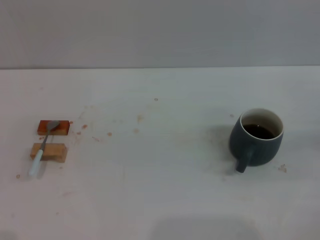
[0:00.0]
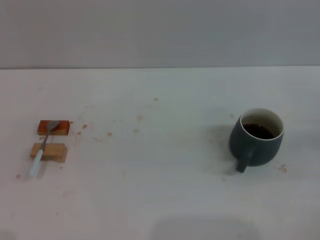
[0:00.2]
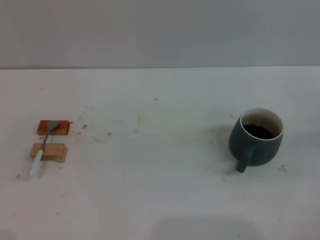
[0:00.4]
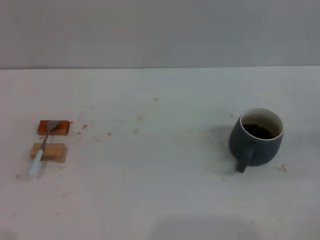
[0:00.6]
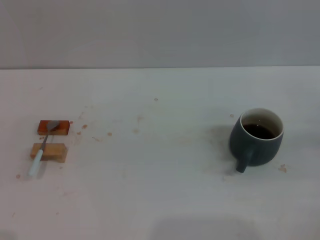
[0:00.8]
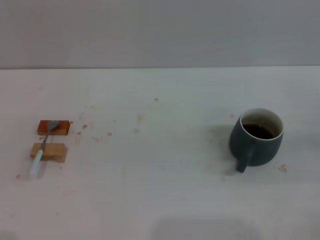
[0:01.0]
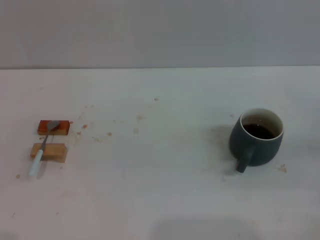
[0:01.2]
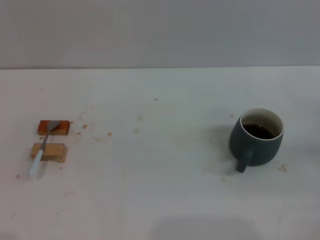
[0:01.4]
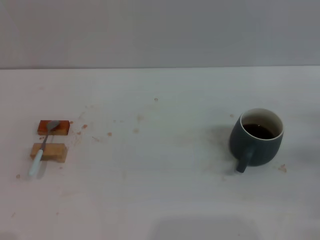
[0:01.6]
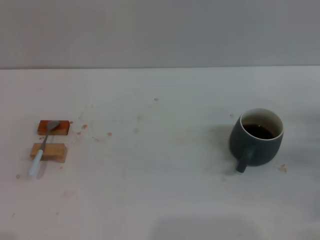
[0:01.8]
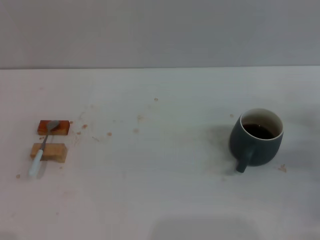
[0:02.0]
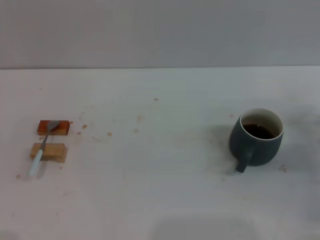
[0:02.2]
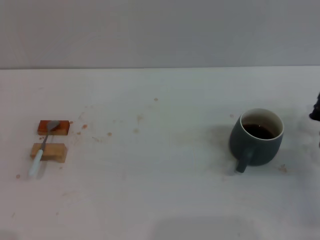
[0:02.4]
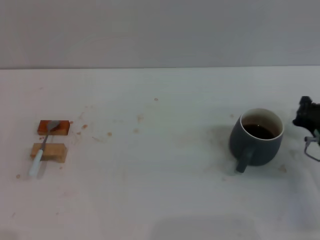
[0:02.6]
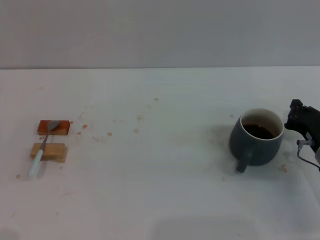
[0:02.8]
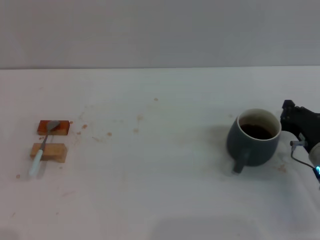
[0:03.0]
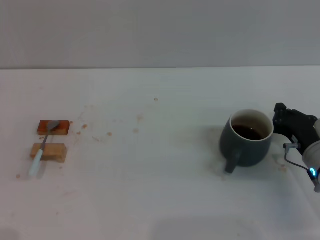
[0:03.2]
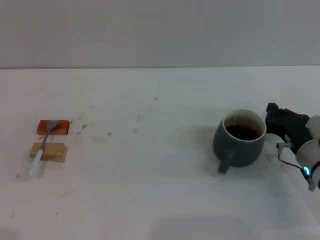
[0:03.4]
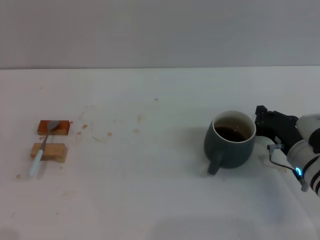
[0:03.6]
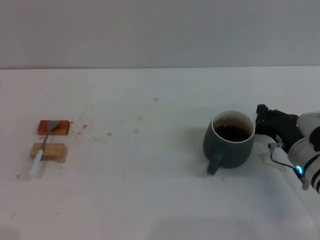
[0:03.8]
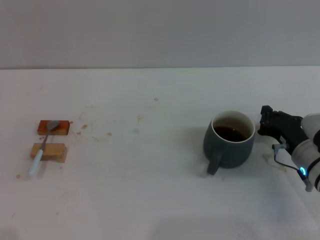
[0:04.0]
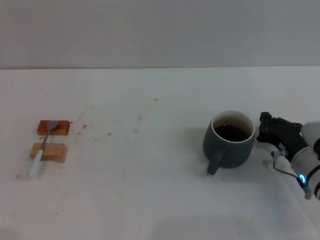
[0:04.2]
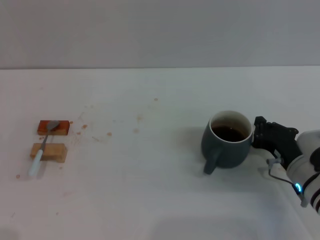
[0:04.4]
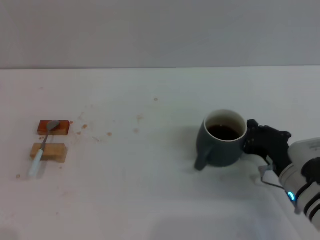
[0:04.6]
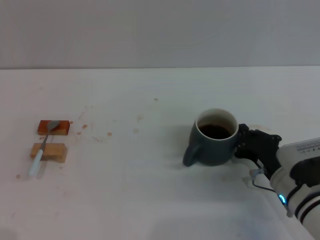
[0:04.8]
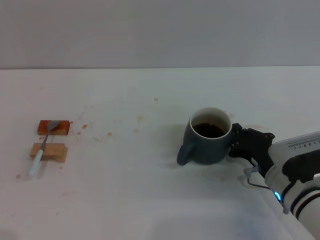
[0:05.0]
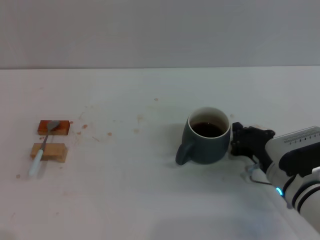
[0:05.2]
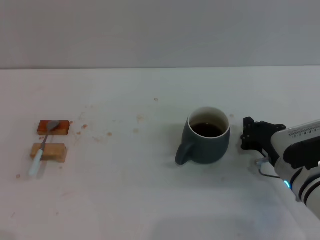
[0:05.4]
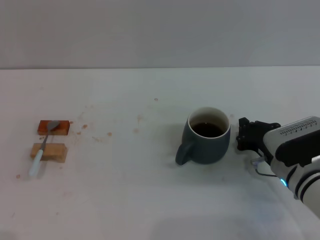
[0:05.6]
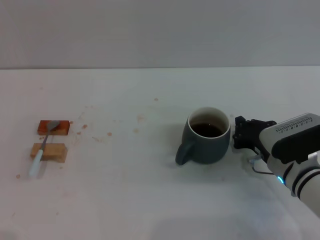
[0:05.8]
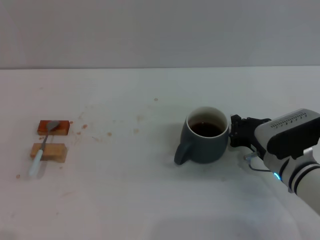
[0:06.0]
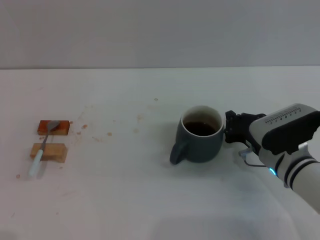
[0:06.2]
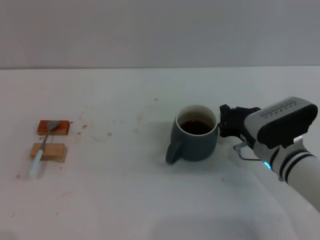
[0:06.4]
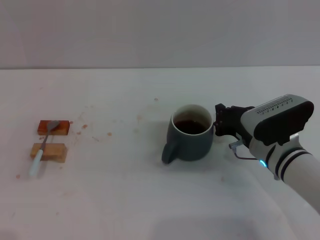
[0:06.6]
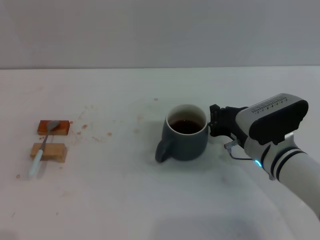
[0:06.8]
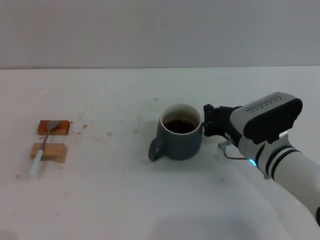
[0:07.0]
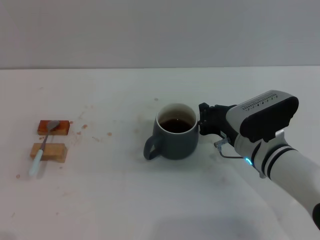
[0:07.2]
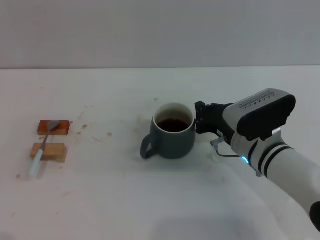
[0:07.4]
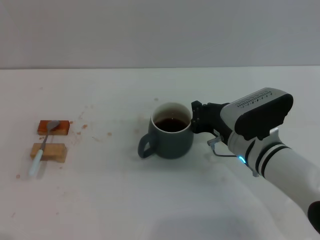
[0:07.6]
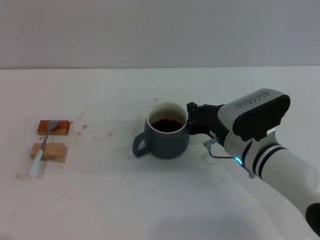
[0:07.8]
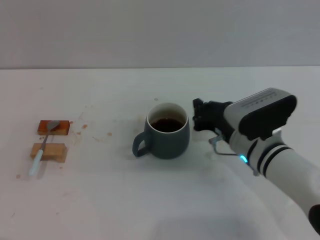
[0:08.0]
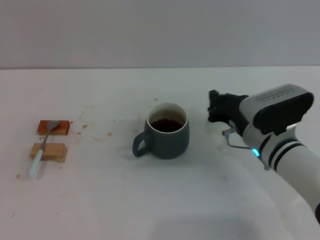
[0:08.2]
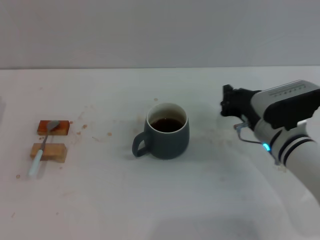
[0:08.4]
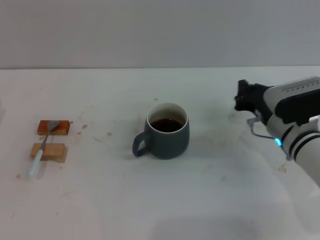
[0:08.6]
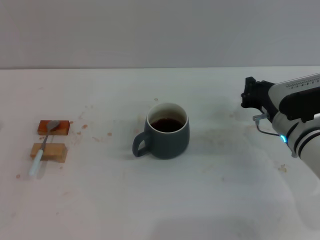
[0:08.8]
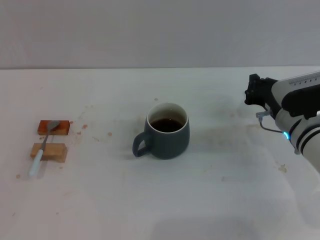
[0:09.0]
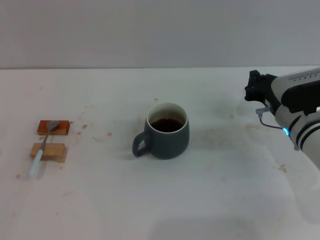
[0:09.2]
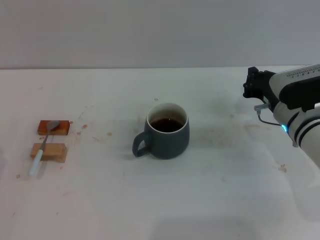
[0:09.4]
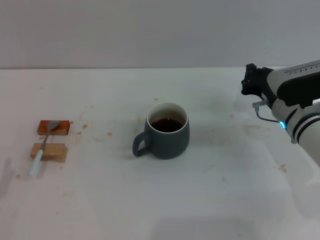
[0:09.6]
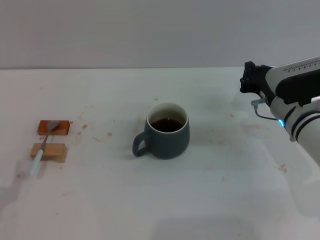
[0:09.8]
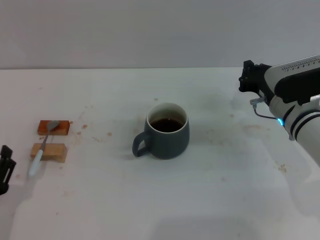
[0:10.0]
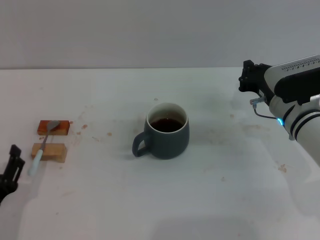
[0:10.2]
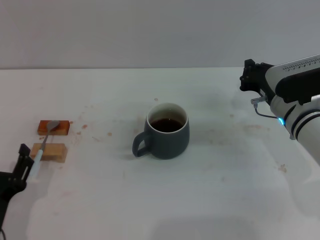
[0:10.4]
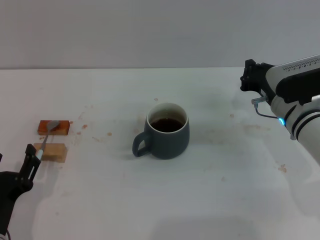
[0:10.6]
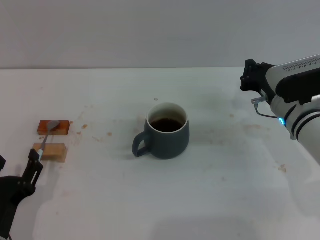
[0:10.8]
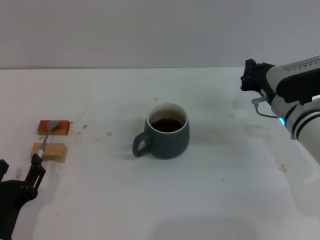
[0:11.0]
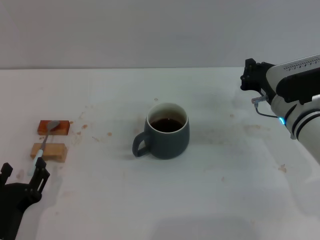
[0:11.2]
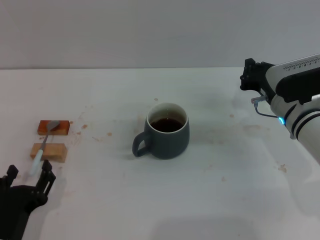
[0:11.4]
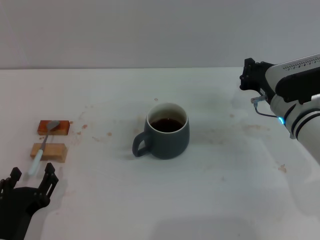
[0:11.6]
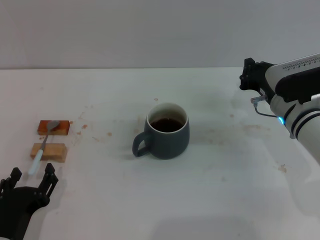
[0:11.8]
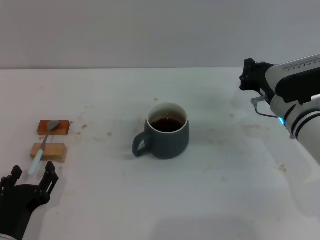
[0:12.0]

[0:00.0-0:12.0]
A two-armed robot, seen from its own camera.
Task of the whole recording: Move the grey cup to the center, lift the blue spoon, stir it three times in the cup, and put the spoon into the cup.
Step, 0:00.0 to 0:08.0: Move the cup with coffee to the center of view with the right gripper.
0:01.6 to 0:03.0: The right gripper moves to the left, some 10 cm, and closes its fingers.
0:03.0 to 0:04.4: There are only small adjustments of the grippers.
0:04.4 to 0:06.0: The grippers make only small movements.
0:06.0 to 0:07.6: The right gripper shifts roughly 5 cm to the left.
0:07.6 to 0:09.0: The right gripper moves to the right, roughly 5 cm, while the left gripper moves backward, roughly 10 cm.
0:09.0 to 0:10.4: The left gripper moves to the right and backward, roughly 15 cm.
0:10.4 to 0:12.0: The grippers stay close to where they were, moving slightly.

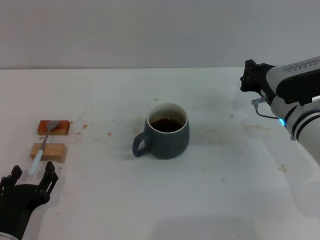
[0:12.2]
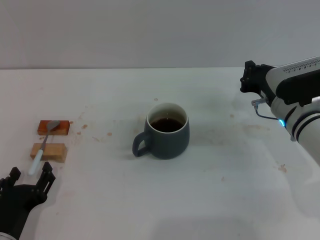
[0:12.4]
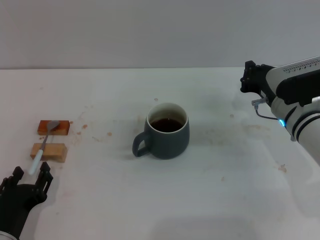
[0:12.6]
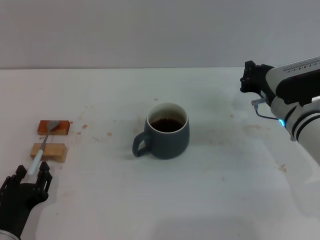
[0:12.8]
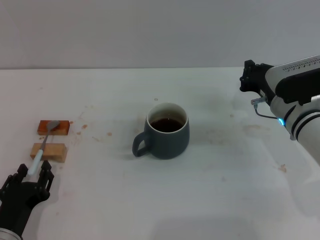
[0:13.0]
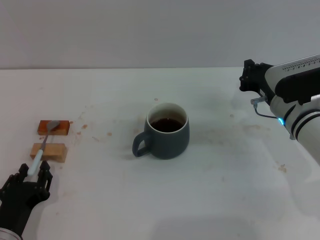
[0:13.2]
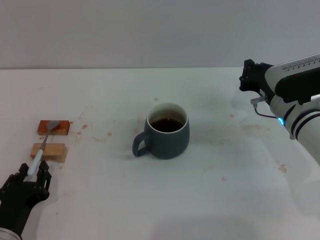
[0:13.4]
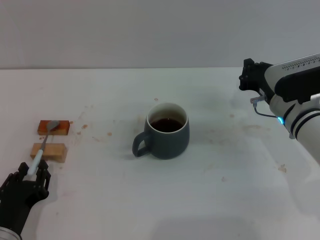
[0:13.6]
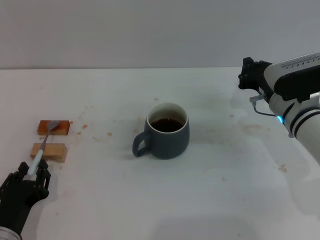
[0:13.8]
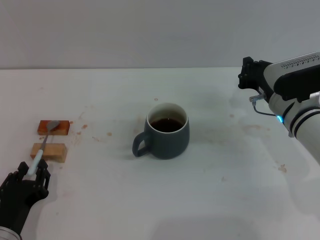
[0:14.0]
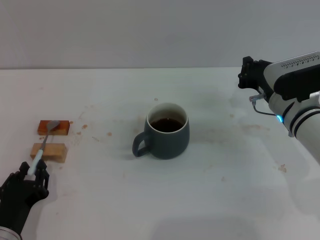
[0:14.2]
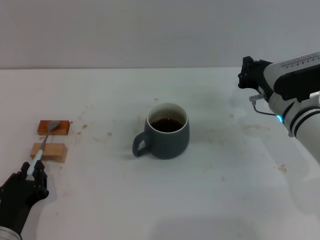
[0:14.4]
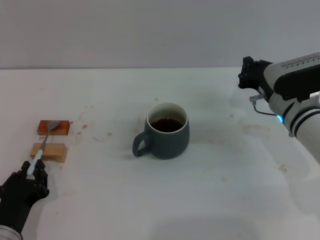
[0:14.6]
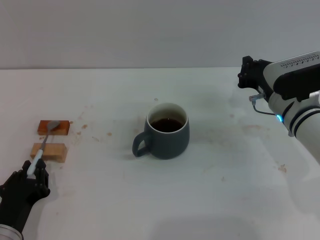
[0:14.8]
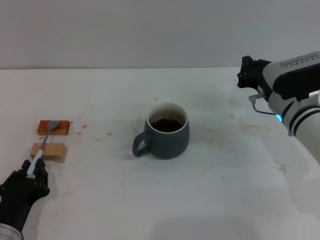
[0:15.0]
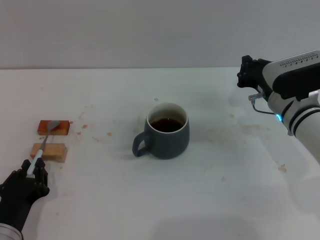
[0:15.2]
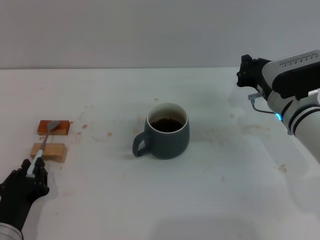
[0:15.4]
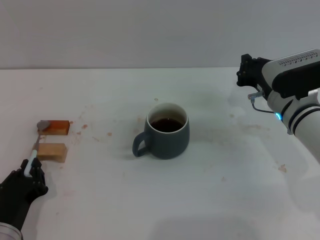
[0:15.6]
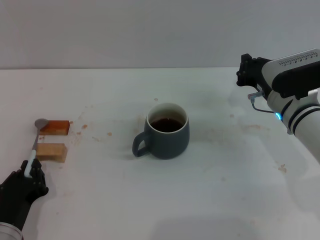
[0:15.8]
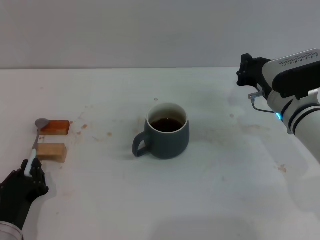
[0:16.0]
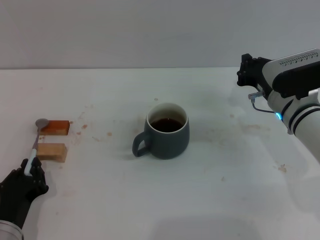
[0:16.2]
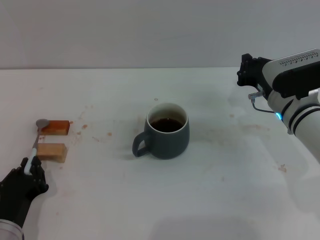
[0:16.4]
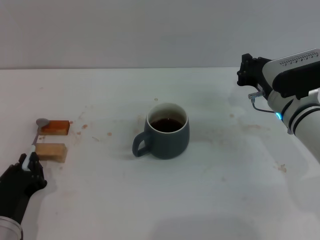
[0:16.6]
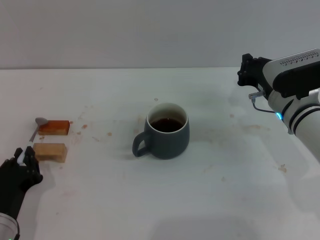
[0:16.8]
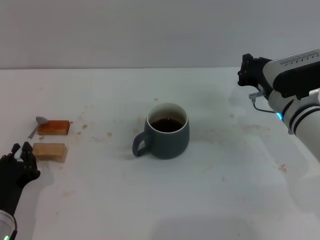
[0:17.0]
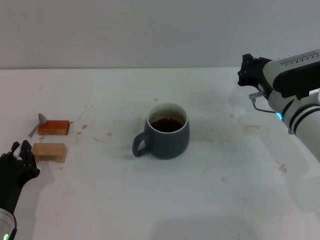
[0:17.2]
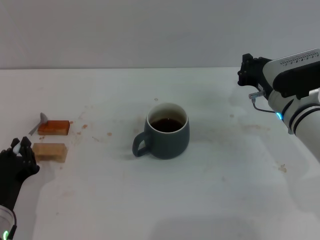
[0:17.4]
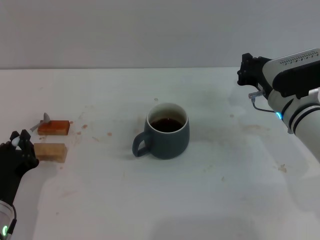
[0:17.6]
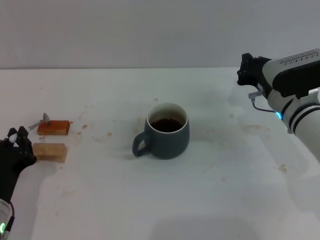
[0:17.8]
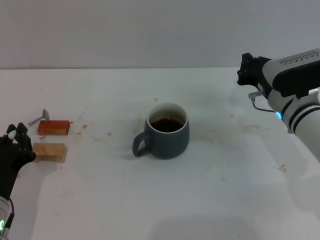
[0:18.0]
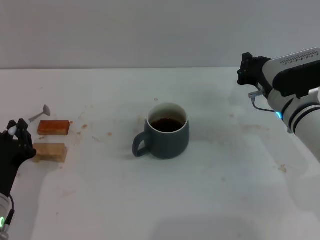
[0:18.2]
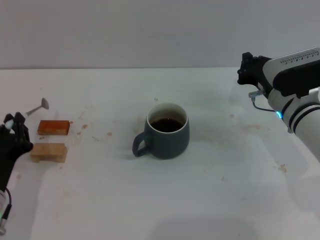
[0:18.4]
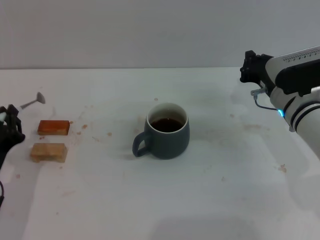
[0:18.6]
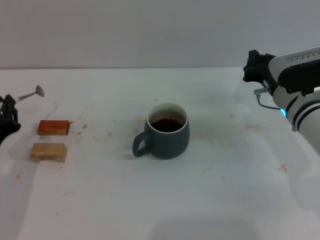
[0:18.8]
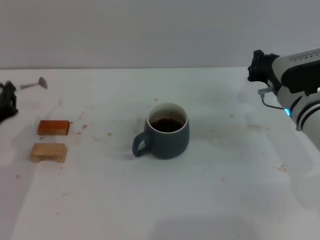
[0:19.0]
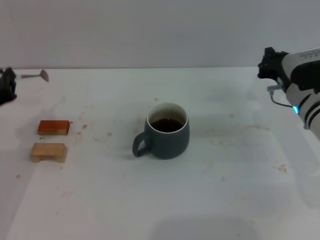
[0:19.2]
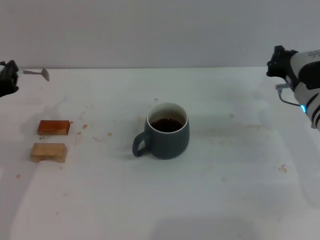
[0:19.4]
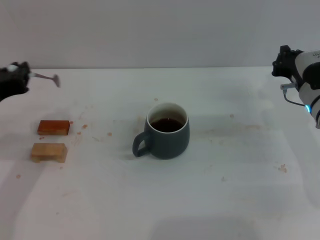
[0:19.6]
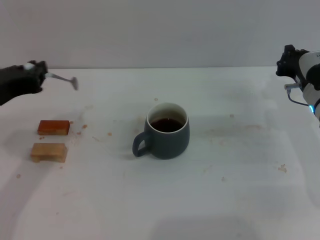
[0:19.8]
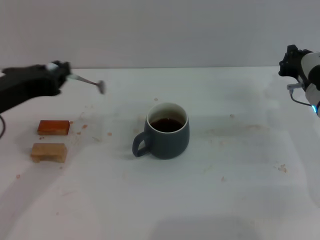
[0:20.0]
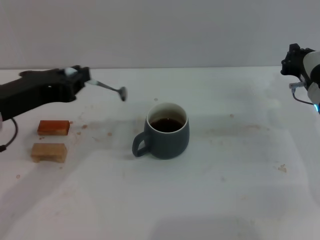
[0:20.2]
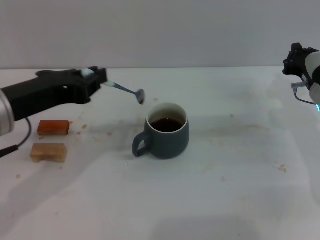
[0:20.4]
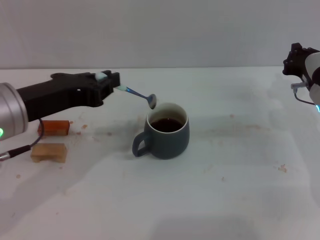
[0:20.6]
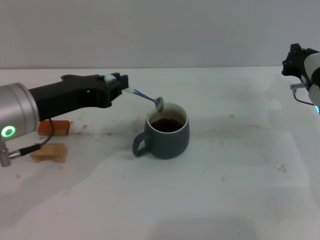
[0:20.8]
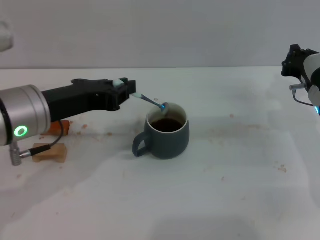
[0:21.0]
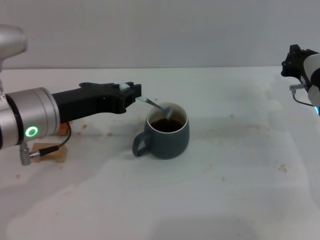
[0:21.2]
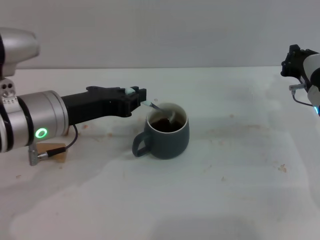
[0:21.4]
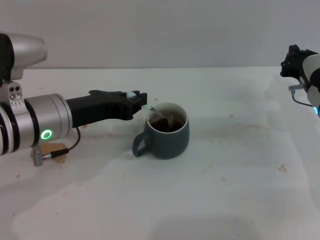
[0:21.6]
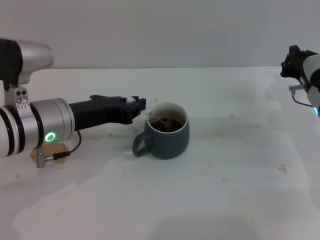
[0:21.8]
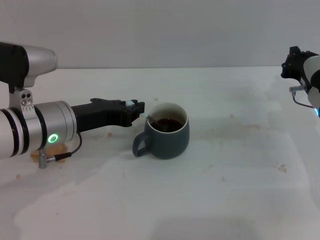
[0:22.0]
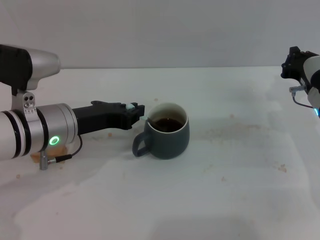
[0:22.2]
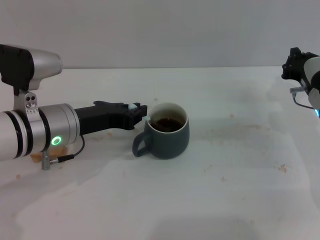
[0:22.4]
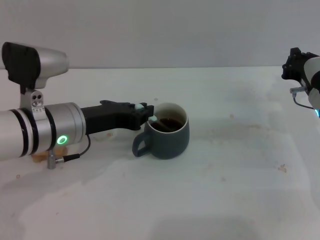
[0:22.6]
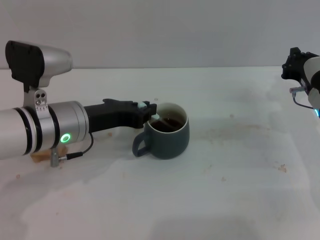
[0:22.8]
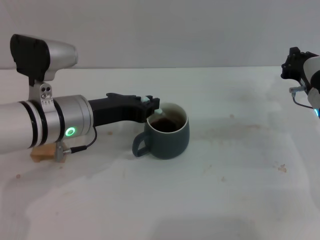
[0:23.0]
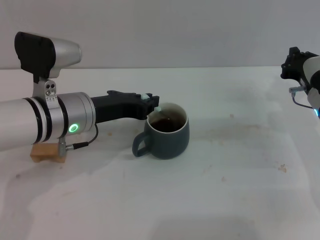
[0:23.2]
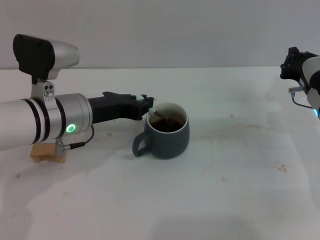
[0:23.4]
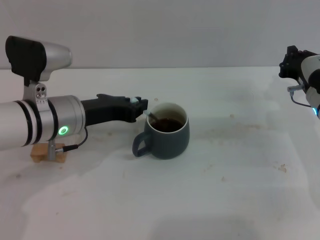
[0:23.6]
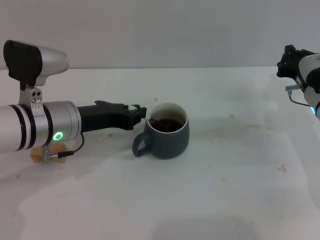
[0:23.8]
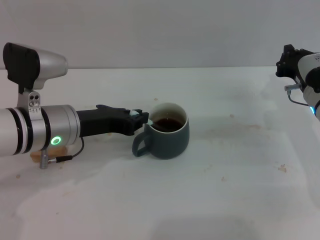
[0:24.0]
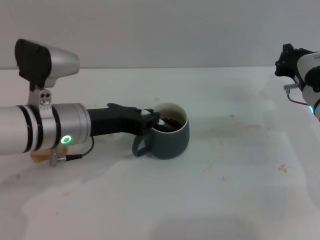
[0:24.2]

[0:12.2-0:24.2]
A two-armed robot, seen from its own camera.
Task of the whole recording: Move the grey cup to the center, lift the blue spoon, stir it three times in the cup, and put the spoon into the cup.
Step, 0:12.2 to 0:18.2: Pick up the spoon with the left gripper.
0:12.2 to 0:13.8: The left gripper closes its fingers.
0:13.8 to 0:16.6: Neither gripper changes place.
0:16.6 to 0:18.2: There are only small adjustments of the grippers.
0:18.2 to 0:19.8: The right gripper is displaced to the right by about 5 cm. Meanwhile the left gripper shifts some 15 cm upward.
0:19.8 to 0:21.2: The left gripper shifts approximately 5 cm to the right.
0:21.2 to 0:22.6: The left gripper shifts by some 5 cm.
0:22.6 to 0:24.2: The grippers stay close to where they were, moving slightly.
